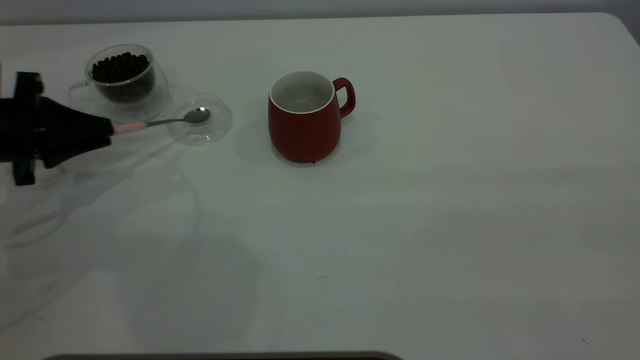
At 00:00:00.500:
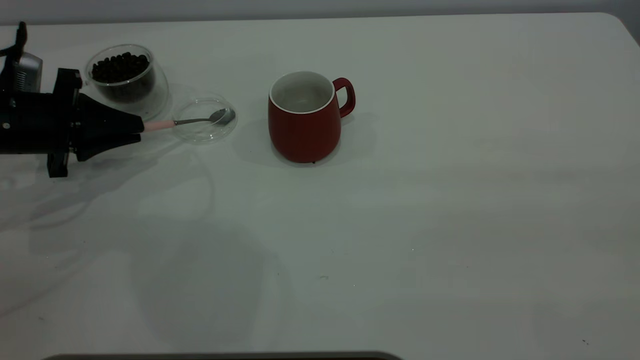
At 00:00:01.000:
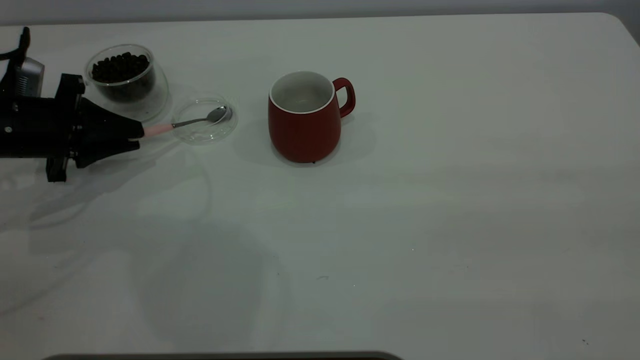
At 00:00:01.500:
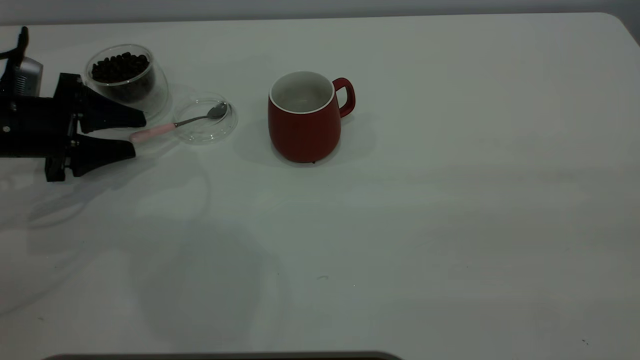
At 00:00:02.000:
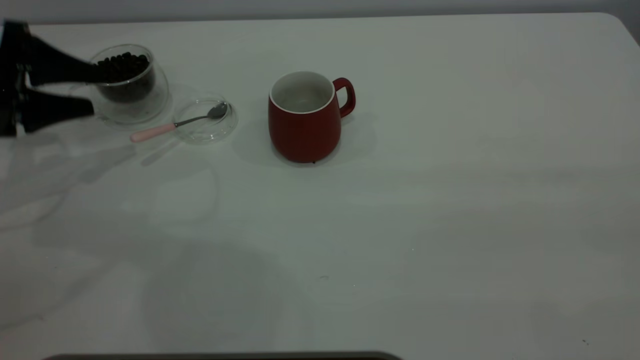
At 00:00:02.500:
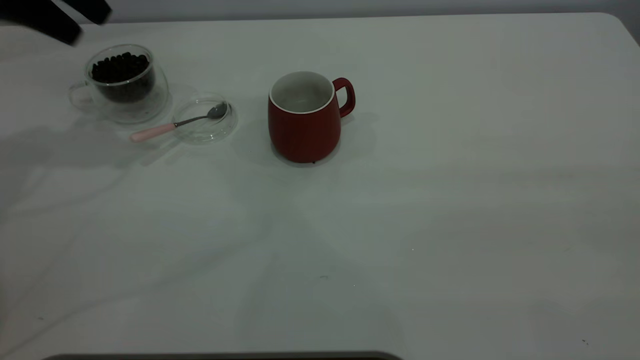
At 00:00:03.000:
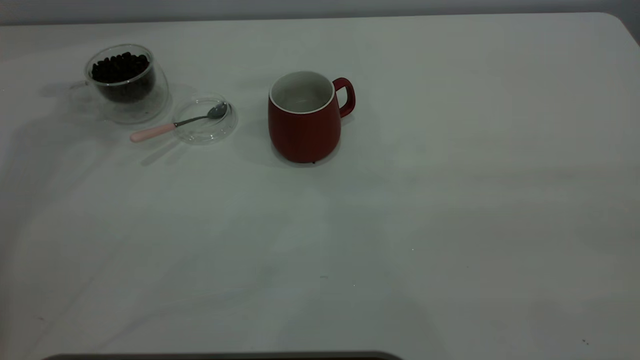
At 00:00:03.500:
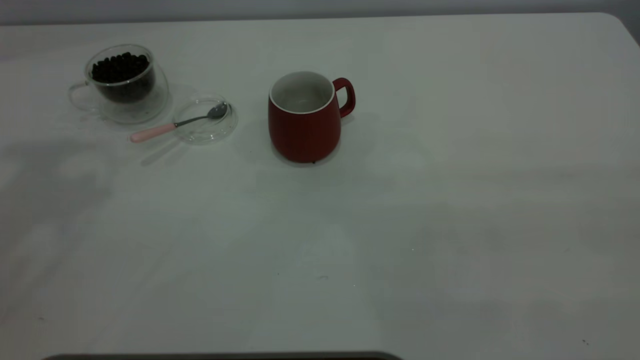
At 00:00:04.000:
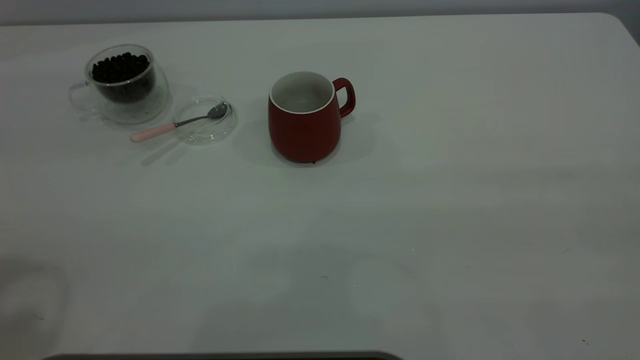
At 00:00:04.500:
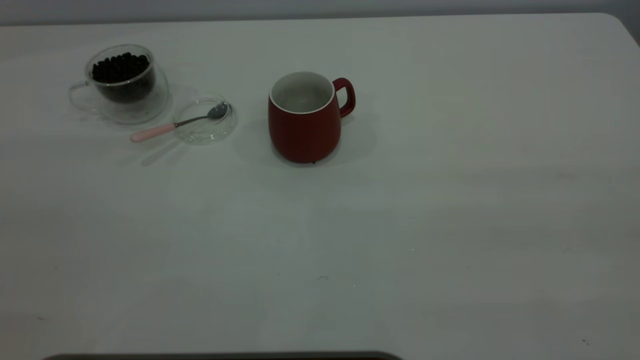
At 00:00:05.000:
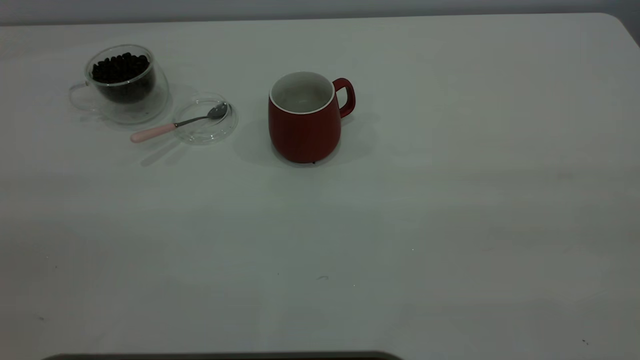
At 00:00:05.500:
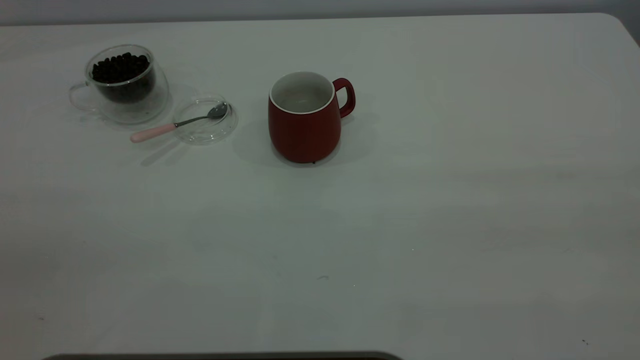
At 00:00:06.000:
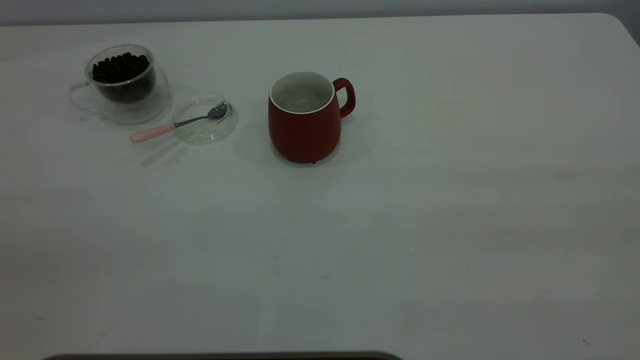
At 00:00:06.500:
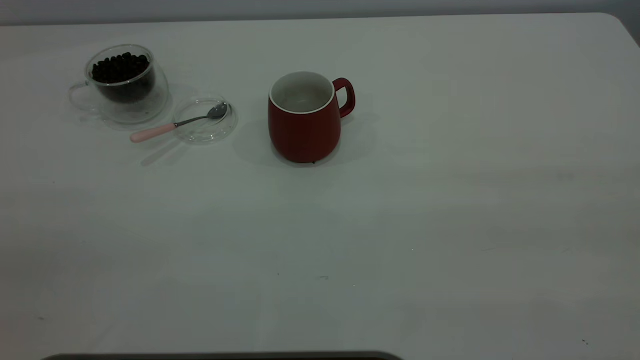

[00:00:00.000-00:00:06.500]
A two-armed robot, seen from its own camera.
Task of the whole recording: the right gripper place the red cup in the center of the table, the left gripper take the pink spoon from the cup lid and scoop out the coffee beans from the coffee cup and put them into the red cup, the left gripper put the spoon back into the cup lid.
Step, 00:00:00.000 to 00:00:02.000: Place the spoon back in its original place.
00:00:00.000 to 00:00:02.000: The left gripper shifts roughly 5 cm upward, and opens up.
00:00:02.000 to 00:00:04.500: The left gripper heads backward and upward, covering approximately 40 cm.
